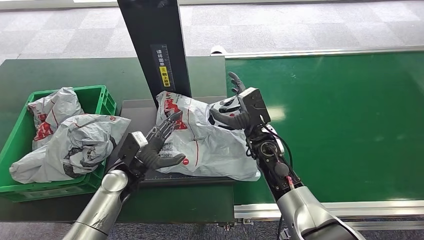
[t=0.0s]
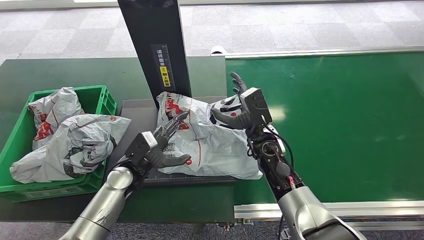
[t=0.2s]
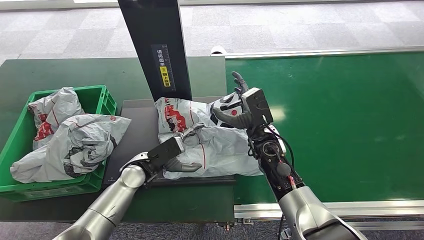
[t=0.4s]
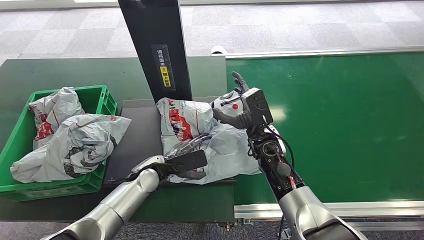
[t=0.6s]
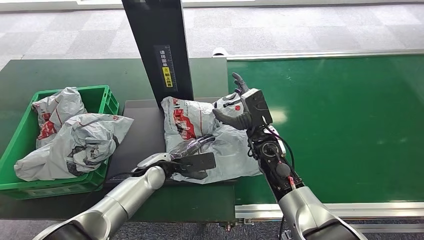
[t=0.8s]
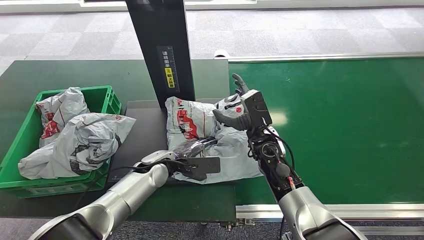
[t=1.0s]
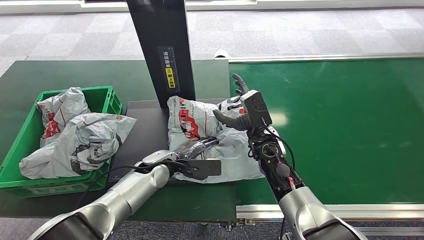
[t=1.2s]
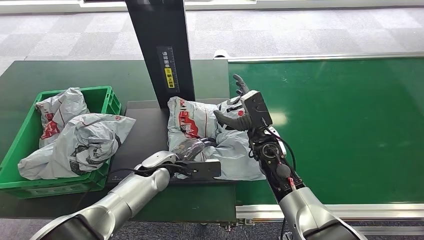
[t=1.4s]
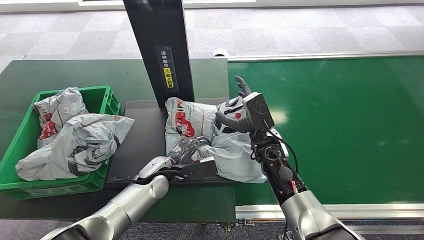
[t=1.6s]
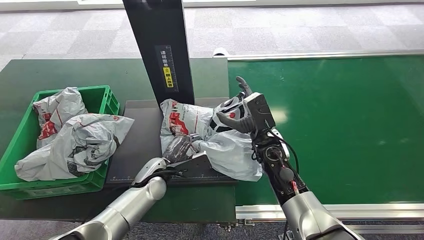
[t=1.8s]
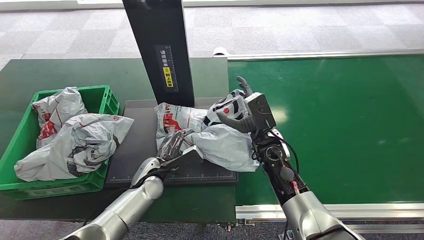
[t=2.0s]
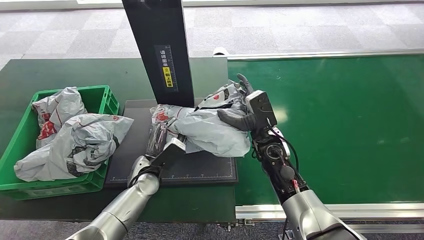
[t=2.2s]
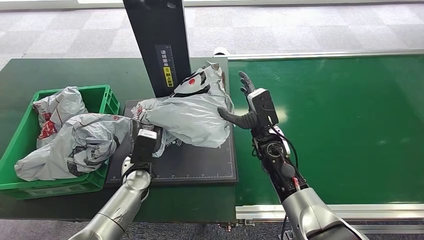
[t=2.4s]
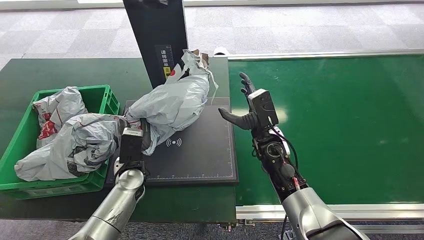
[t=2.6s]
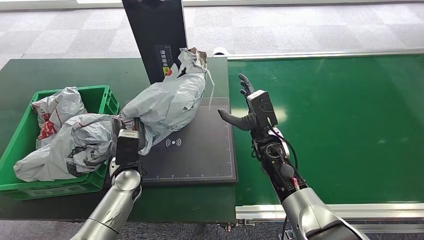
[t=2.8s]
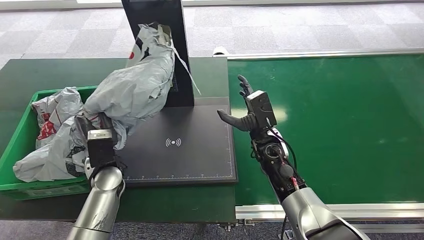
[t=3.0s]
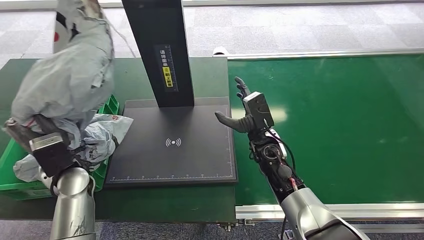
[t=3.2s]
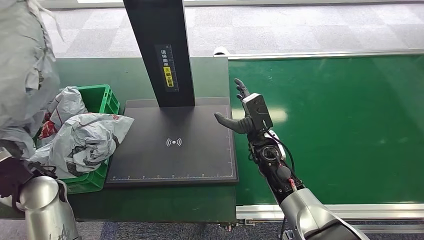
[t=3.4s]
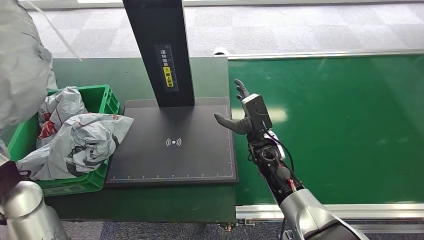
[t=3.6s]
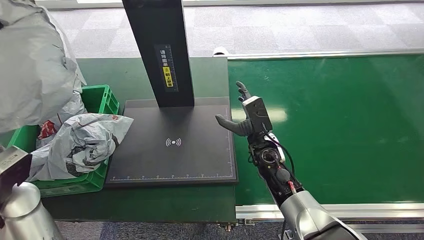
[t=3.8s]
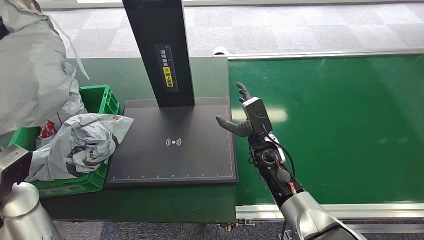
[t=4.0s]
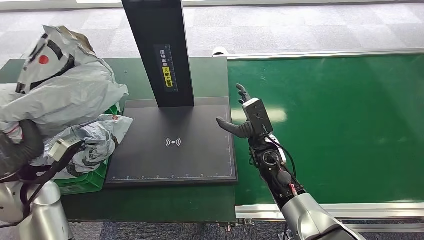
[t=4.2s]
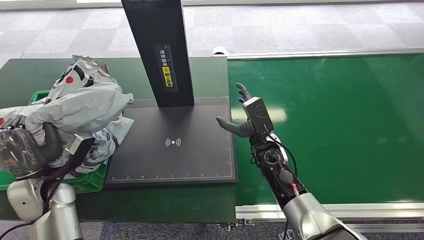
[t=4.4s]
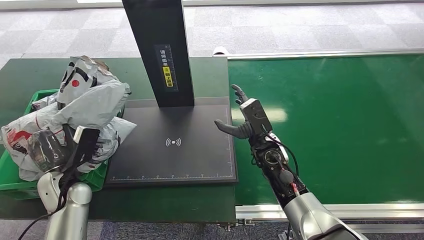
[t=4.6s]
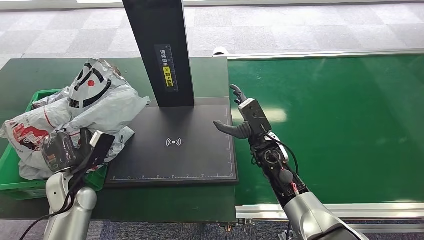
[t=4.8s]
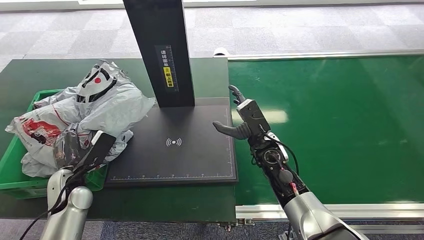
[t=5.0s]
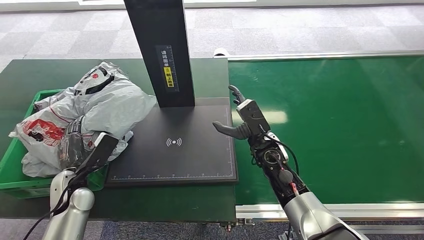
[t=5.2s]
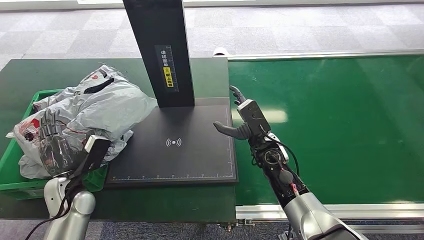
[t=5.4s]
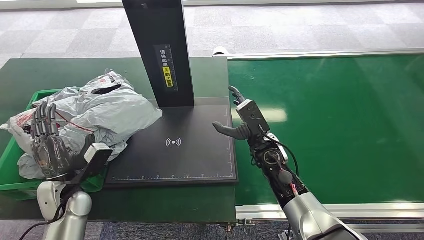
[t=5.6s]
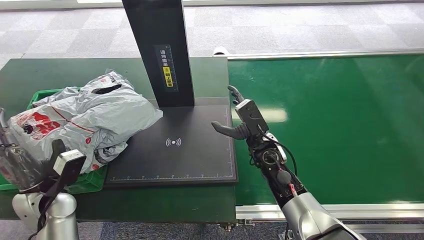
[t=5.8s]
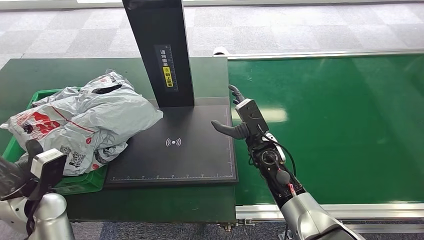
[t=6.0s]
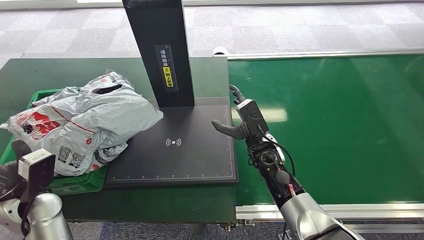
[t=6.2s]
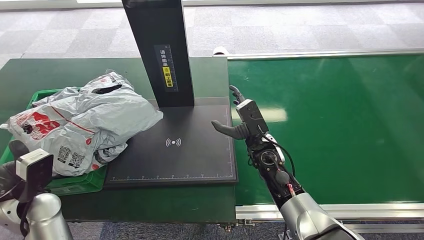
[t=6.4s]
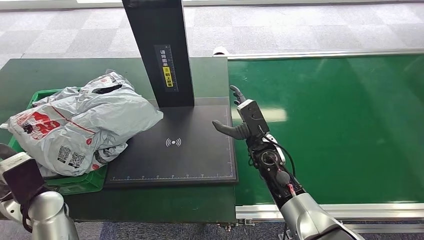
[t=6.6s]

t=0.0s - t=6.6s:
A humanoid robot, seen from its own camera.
Step, t=0.0s - t=3.6s: Pick up the package from the inbound machine.
Step, t=3.8s - t=6.6s: Place the package into the parcel locker.
t=5.0s - t=6.6s: The left hand shifts some 5 cm upward.

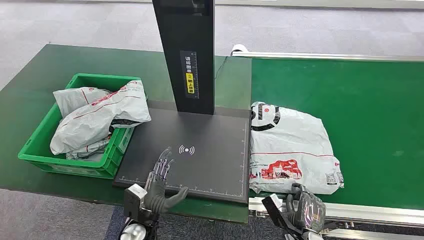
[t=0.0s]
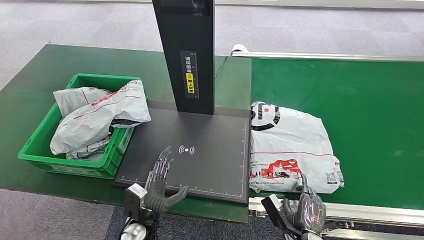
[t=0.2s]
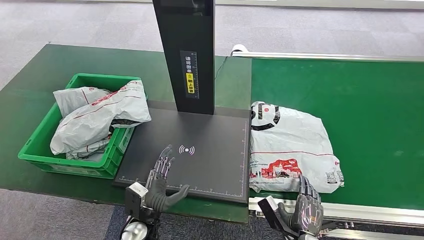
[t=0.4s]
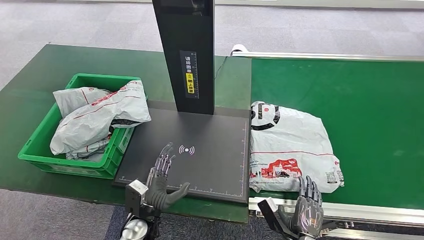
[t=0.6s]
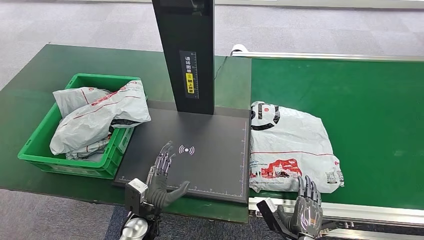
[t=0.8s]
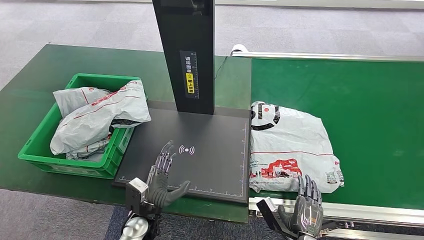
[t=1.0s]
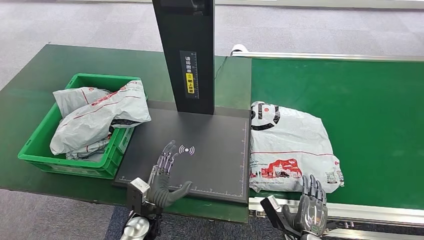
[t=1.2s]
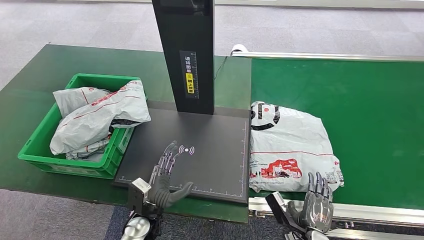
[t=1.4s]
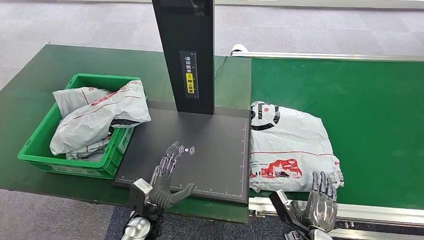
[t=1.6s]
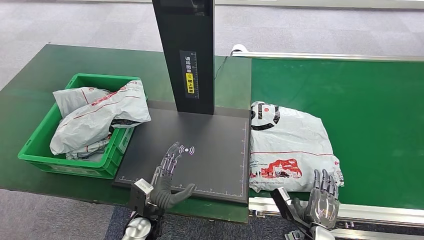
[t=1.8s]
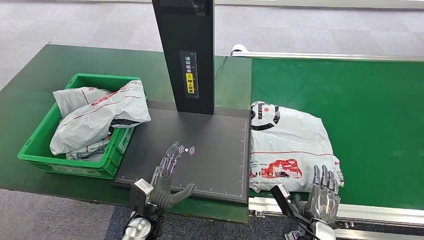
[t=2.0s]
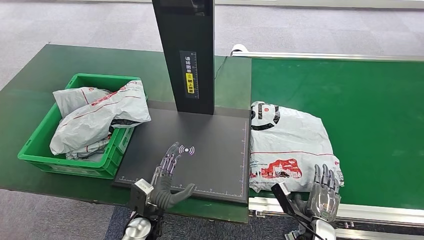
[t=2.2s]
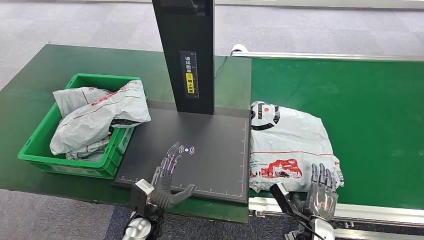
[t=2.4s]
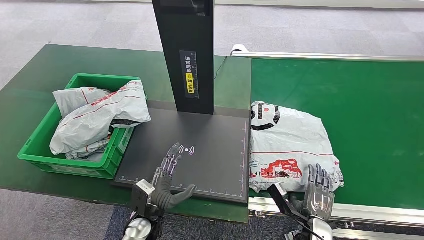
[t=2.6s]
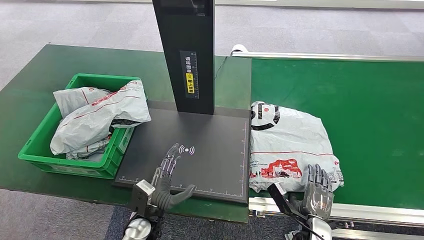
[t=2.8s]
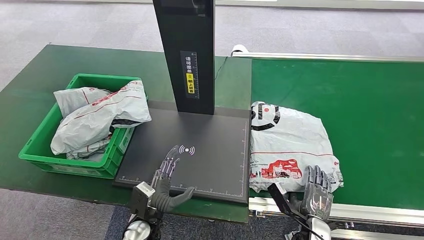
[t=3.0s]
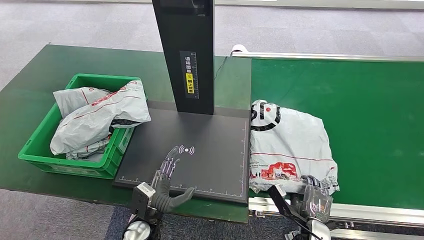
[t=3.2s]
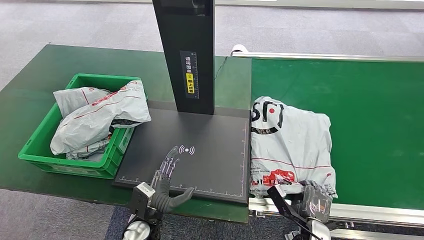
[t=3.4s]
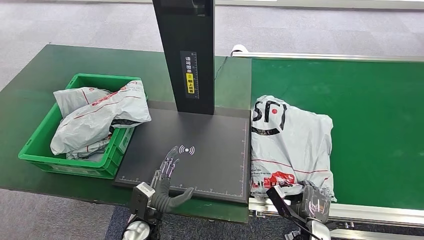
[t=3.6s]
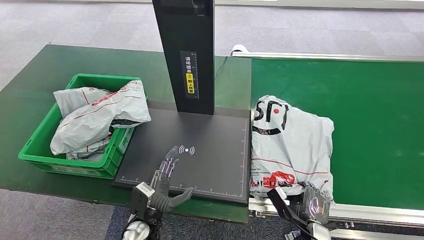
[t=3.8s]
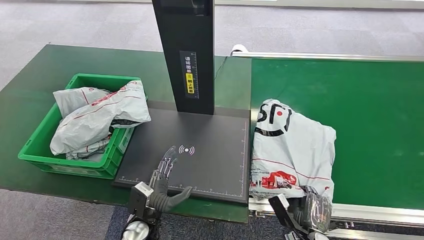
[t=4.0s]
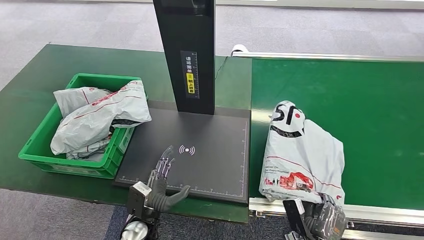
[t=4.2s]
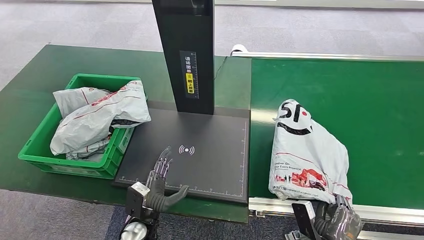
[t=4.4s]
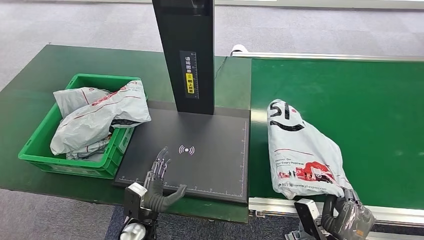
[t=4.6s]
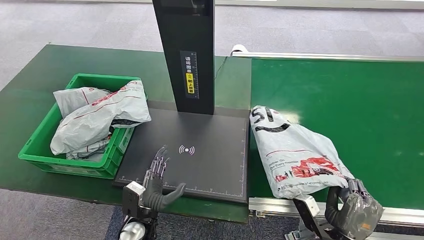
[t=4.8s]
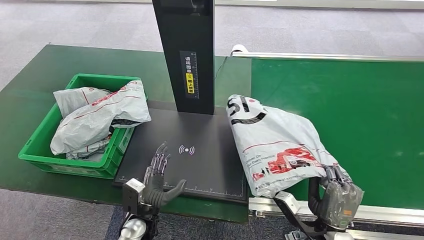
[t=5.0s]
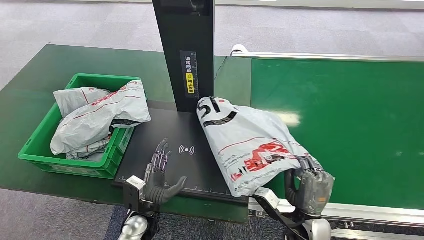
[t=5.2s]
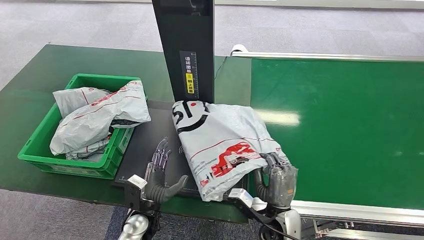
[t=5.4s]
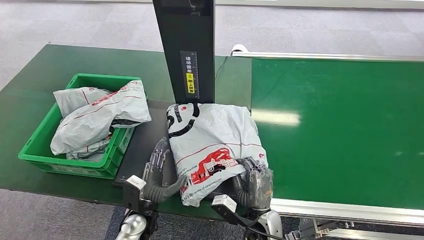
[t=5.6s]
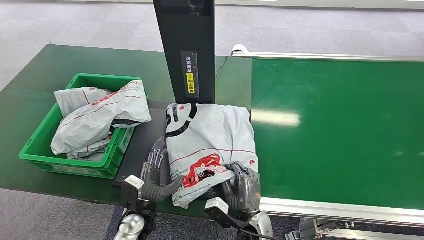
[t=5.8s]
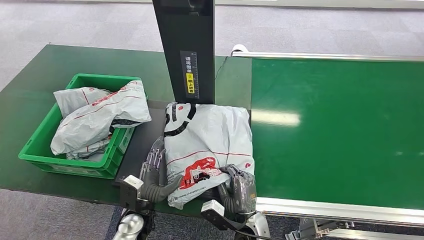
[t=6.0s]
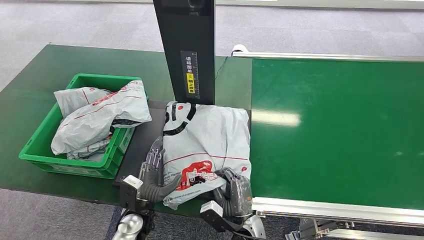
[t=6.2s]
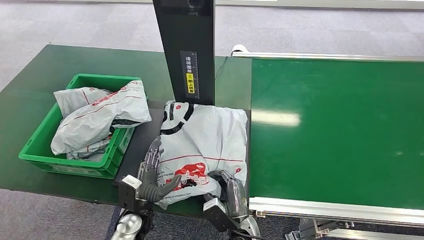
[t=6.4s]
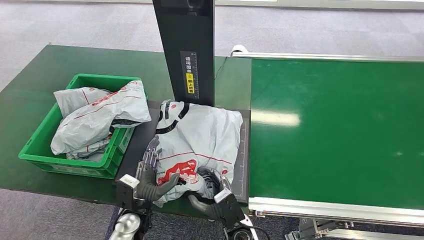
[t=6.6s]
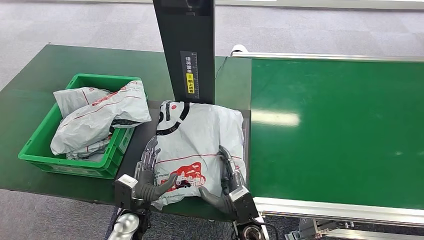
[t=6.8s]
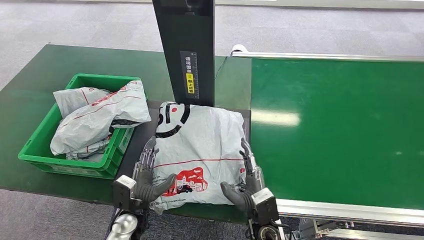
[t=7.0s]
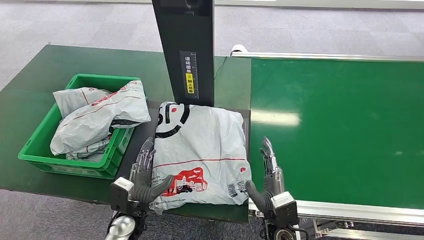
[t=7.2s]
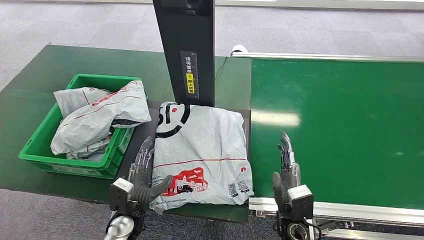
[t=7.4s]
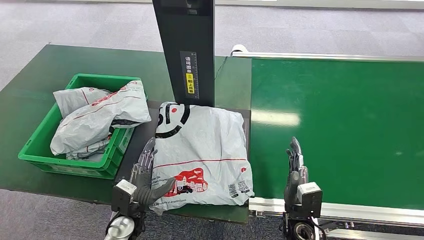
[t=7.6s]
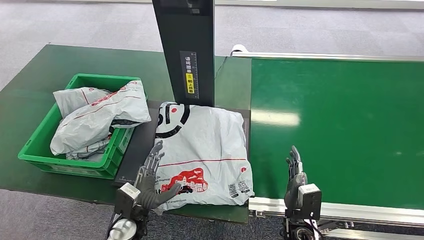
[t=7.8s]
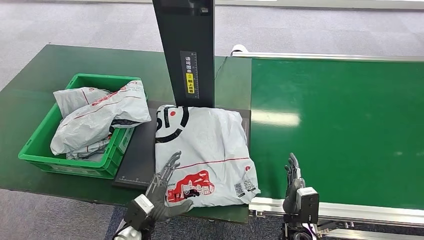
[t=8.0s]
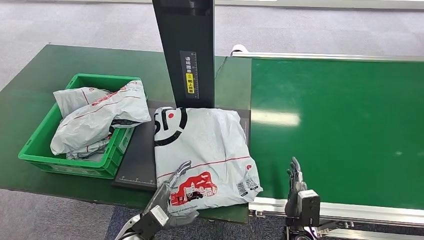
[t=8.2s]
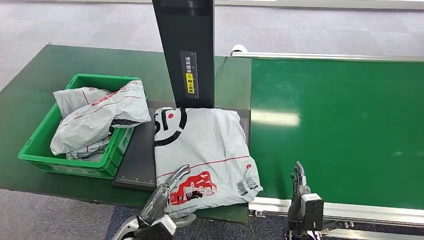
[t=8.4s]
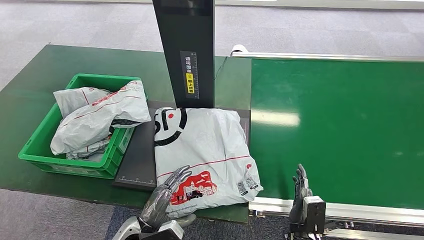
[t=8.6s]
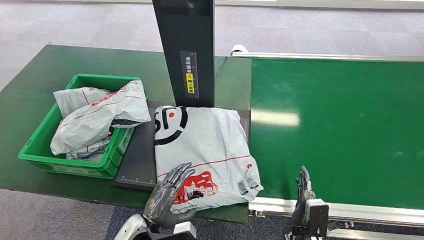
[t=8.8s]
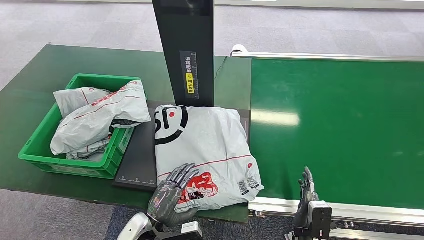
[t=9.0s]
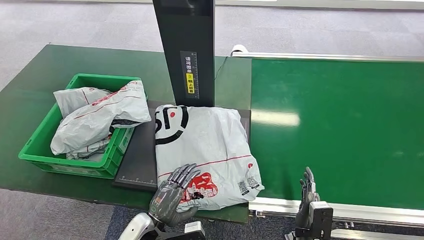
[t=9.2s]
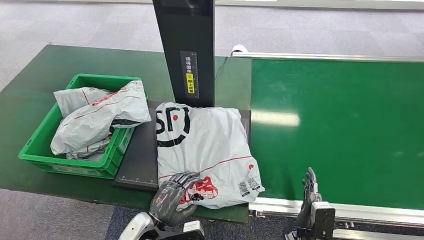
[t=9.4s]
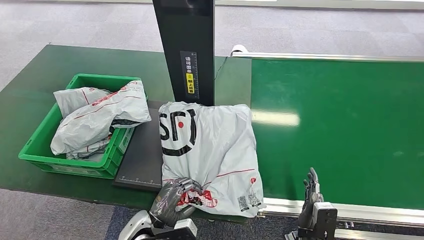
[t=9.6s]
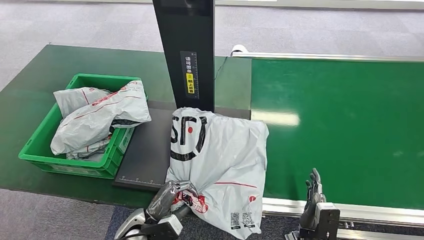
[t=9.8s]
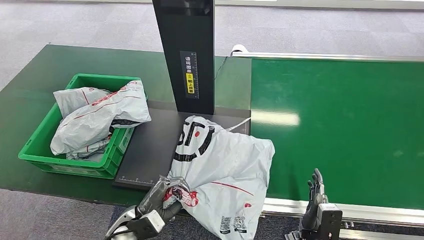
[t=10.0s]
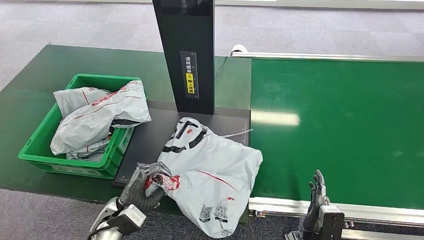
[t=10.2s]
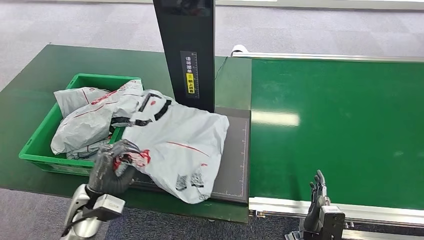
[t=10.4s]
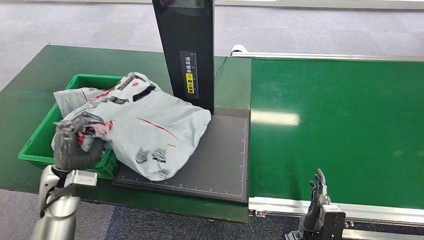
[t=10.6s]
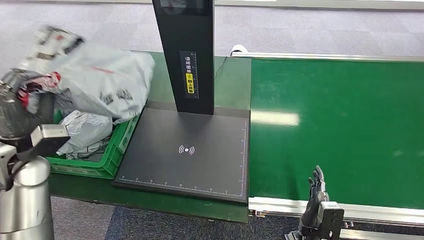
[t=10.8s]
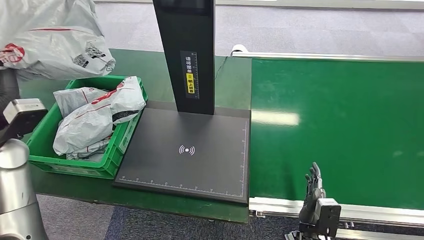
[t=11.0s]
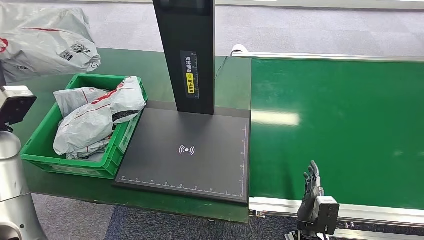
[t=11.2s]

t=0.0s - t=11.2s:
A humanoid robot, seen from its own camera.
Step, t=0.0s - t=4.8s: Pick up the package from the conveyor belt.
Step, t=5.0s - t=7.8s: Place the package onto the inbound machine.
Step, t=8.0s - t=11.0s: Pick up the package from the inbound machine.
t=1.6s - t=3.2s: The hands stay close to where they were, moving slightly.
t=3.2s - t=4.8s: The right hand is displaced upward by approximately 10 cm.
t=6.4s - t=8.0s: The right hand heads to the right, covering approximately 15 cm.
